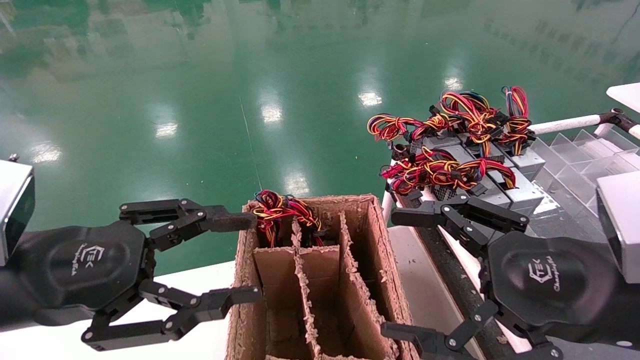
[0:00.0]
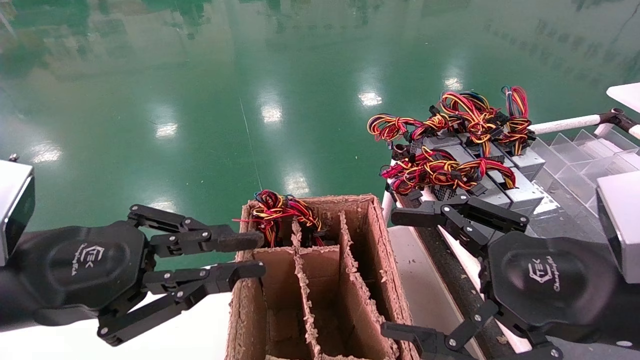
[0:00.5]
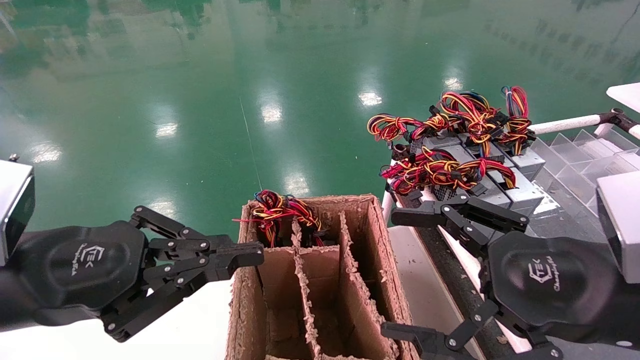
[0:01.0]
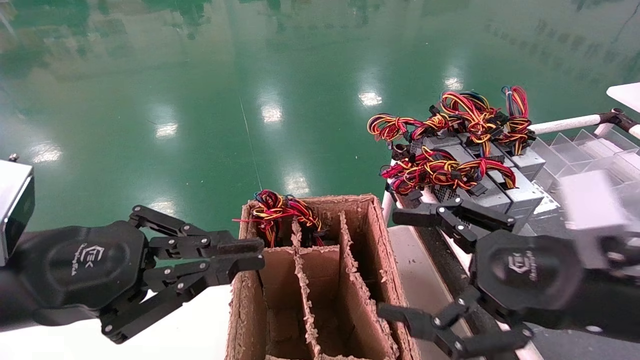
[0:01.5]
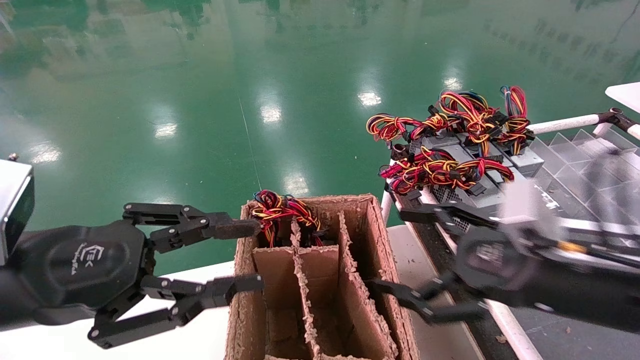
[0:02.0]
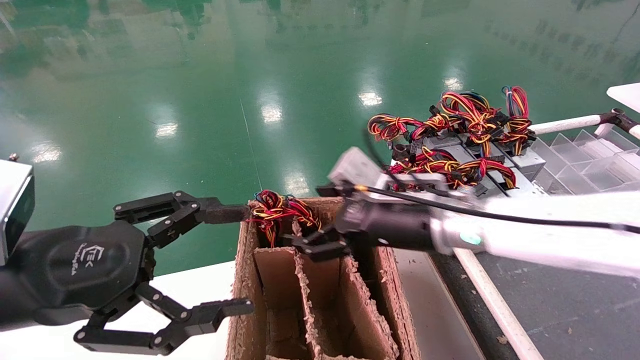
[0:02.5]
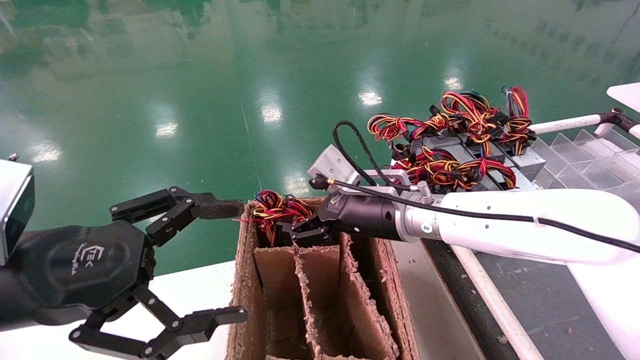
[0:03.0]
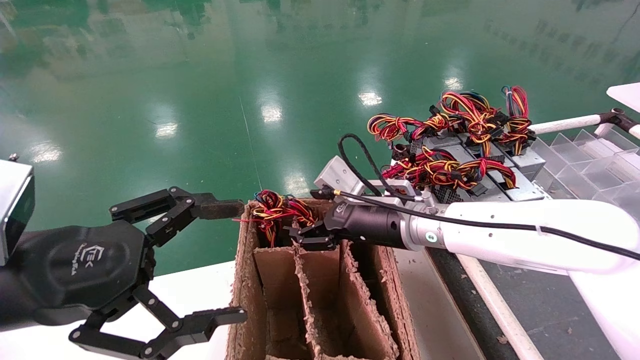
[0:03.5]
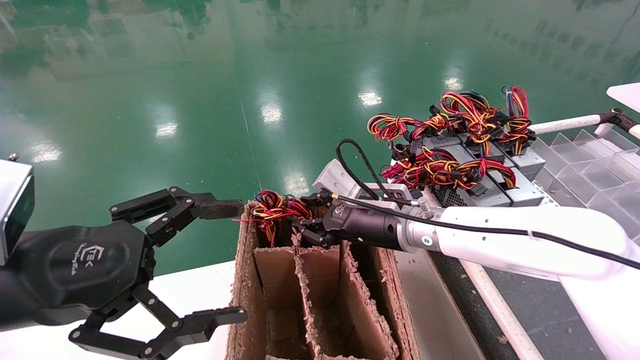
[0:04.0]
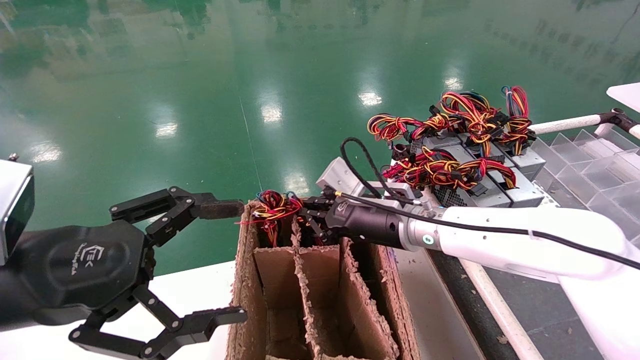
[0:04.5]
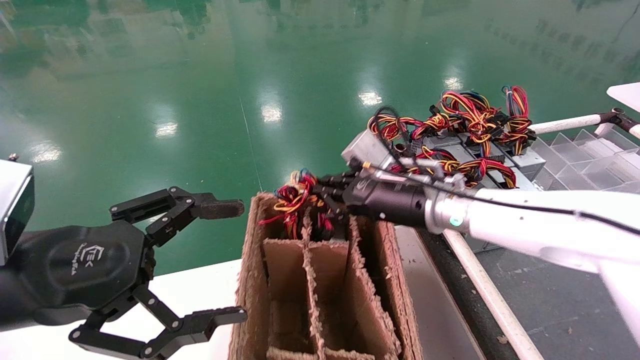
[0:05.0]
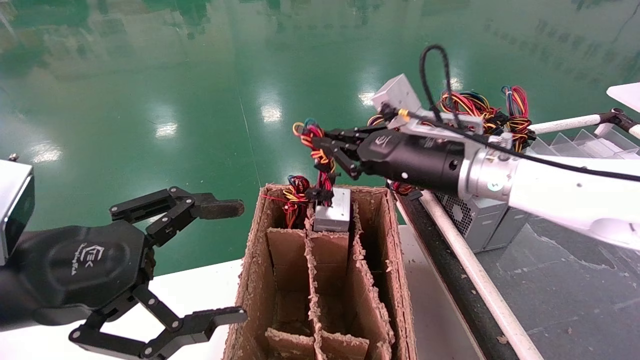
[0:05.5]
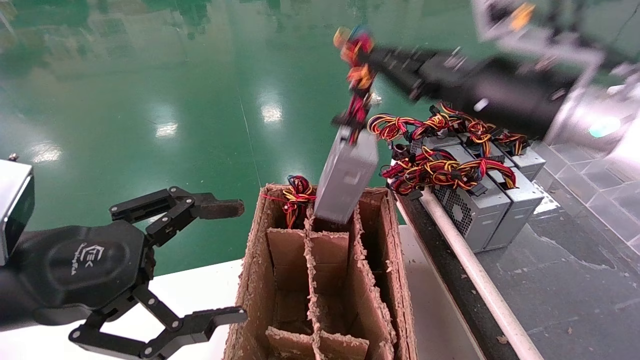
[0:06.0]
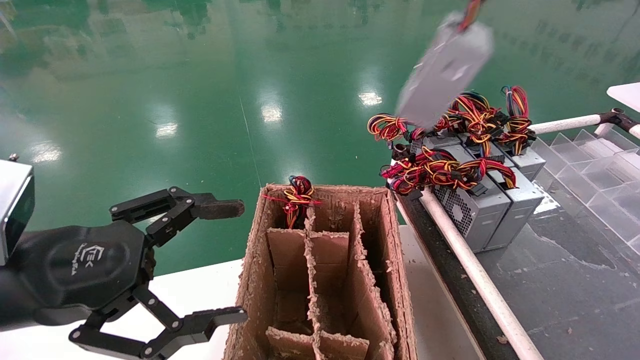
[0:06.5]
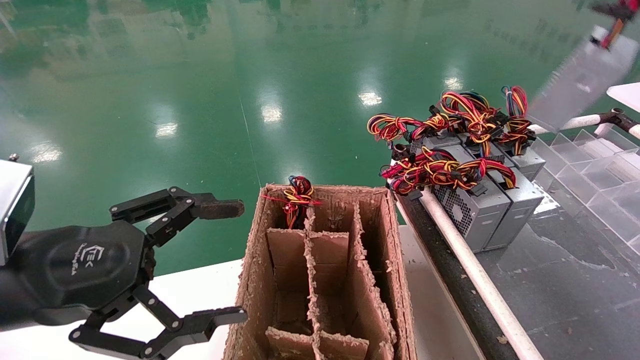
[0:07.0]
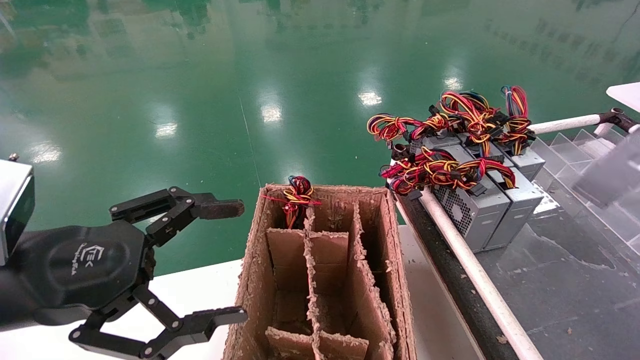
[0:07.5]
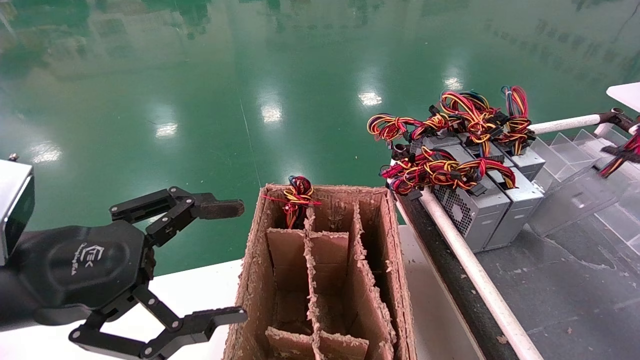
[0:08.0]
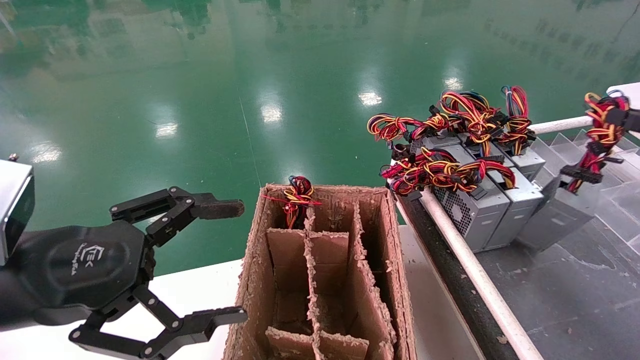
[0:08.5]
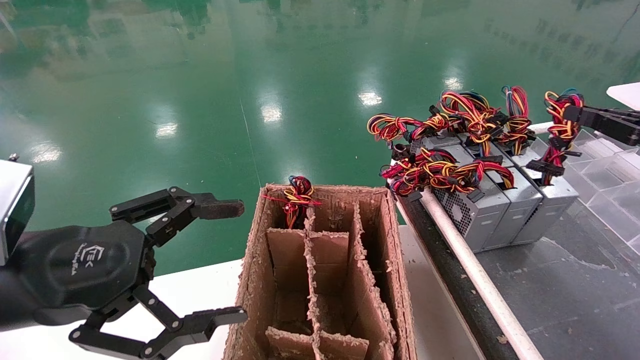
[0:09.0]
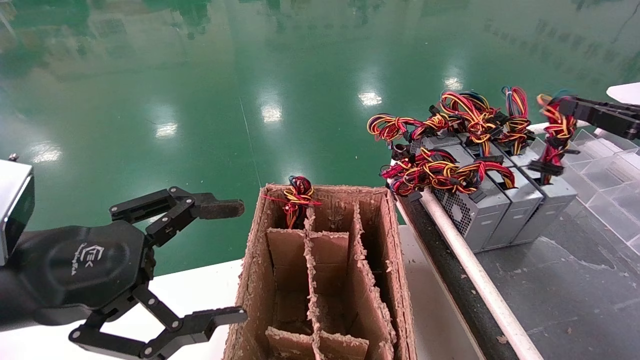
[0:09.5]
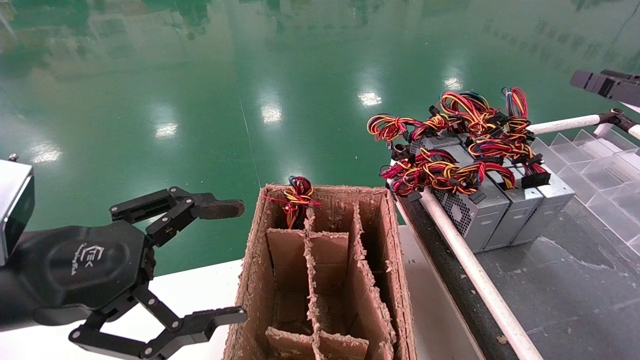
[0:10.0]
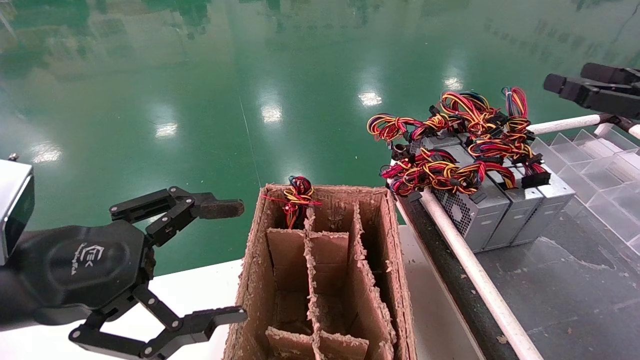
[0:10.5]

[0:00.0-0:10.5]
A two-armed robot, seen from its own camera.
Step, 0:01.0 to 0:05.0: Grab and lift the power supply from the large box.
Step, 0:05.5 to 0:09.5: Place the power supply on the operating table.
0:00.0 to 0:02.0: The right gripper travels forward by some 5 cm.
0:02.0 to 0:04.0: The right gripper goes some 20 cm to the left and forward, and closes, while the left gripper opens its fingers.
0:04.0 to 0:06.5: The right gripper moves to the right and upward, about 35 cm, and closes up.
0:06.5 to 0:08.5: The right gripper shifts roughly 20 cm to the right and downward.
0:08.5 to 0:10.5: The right gripper moves to the left, approximately 5 cm, and opens.
